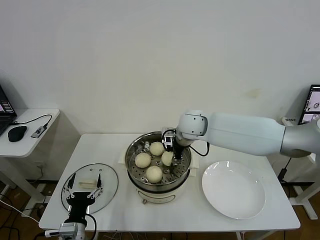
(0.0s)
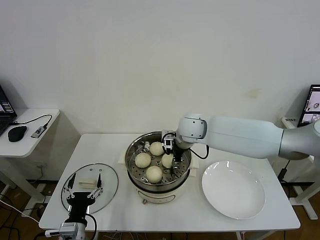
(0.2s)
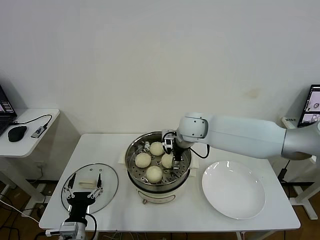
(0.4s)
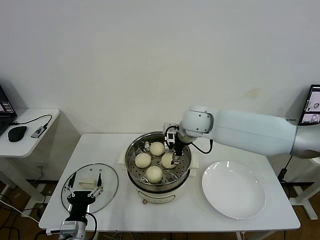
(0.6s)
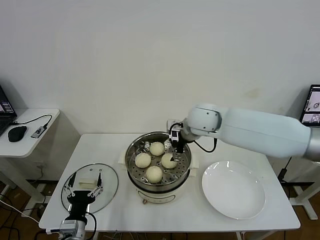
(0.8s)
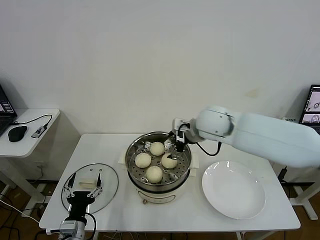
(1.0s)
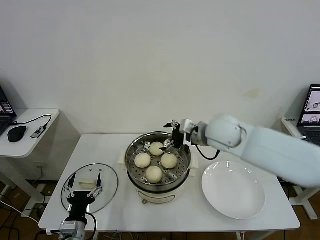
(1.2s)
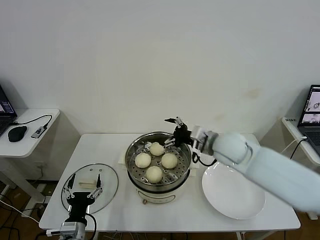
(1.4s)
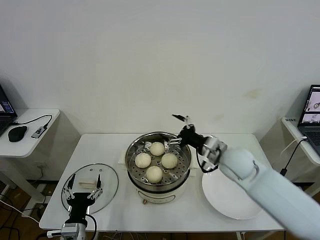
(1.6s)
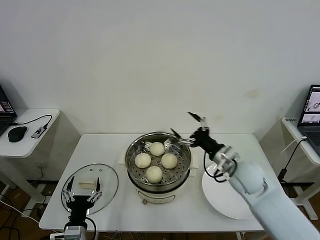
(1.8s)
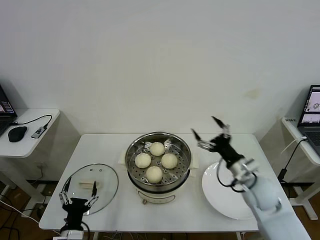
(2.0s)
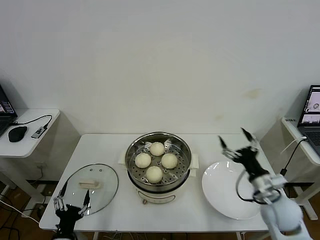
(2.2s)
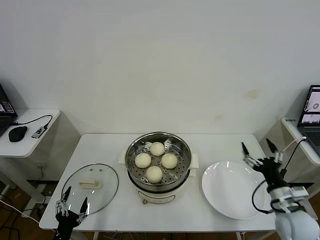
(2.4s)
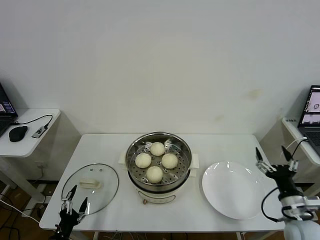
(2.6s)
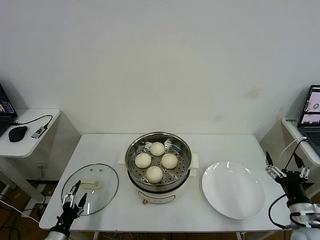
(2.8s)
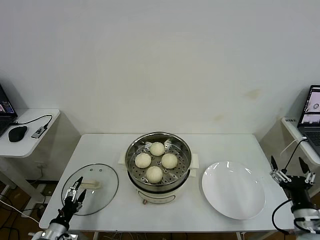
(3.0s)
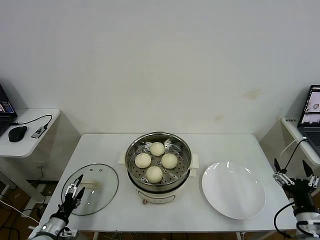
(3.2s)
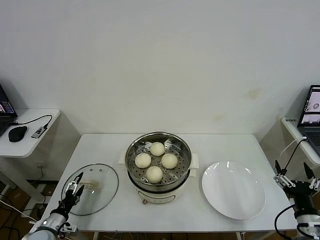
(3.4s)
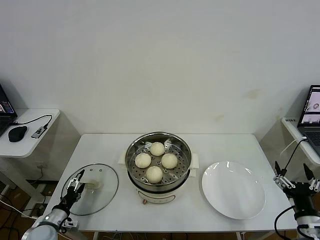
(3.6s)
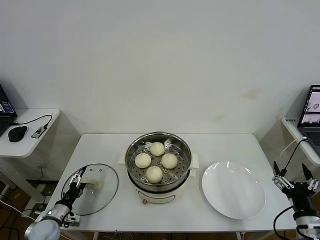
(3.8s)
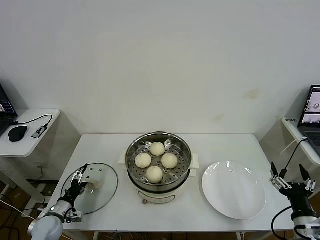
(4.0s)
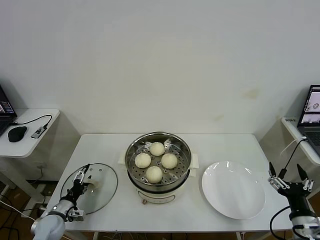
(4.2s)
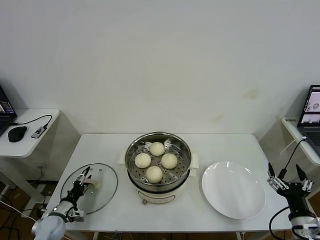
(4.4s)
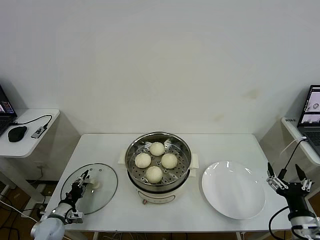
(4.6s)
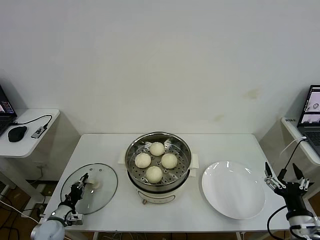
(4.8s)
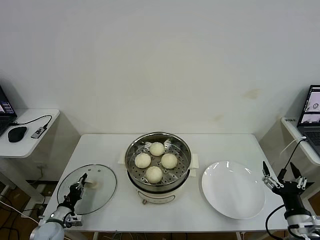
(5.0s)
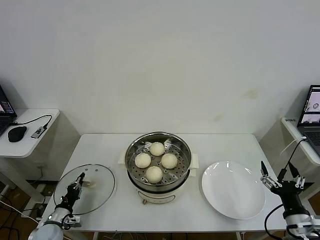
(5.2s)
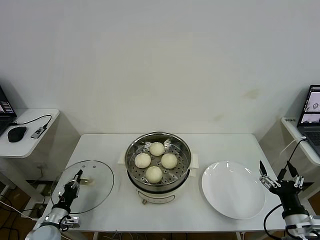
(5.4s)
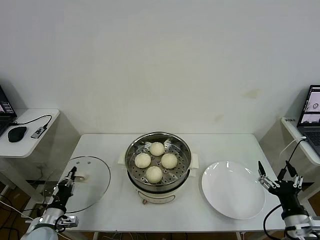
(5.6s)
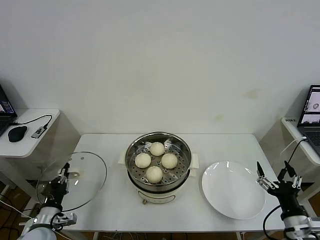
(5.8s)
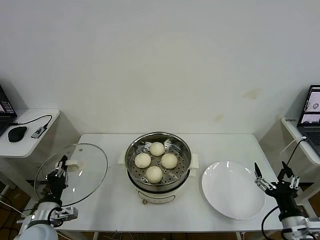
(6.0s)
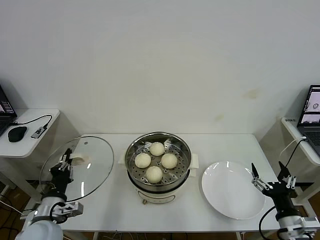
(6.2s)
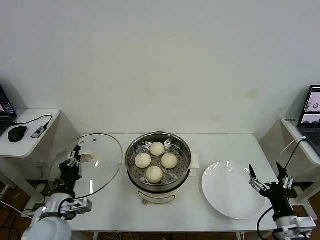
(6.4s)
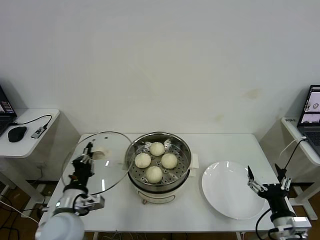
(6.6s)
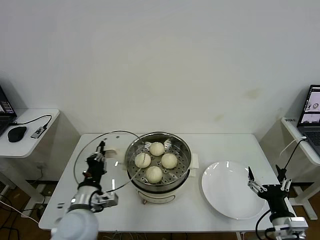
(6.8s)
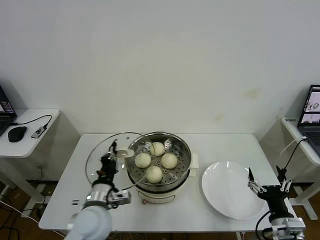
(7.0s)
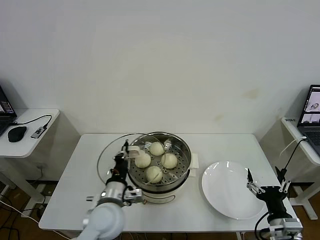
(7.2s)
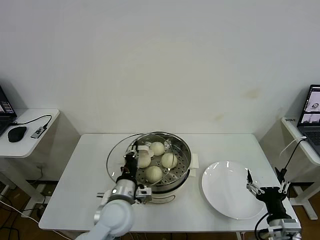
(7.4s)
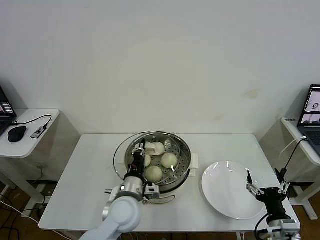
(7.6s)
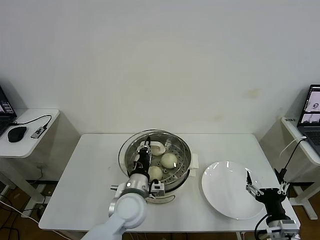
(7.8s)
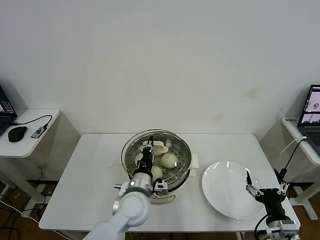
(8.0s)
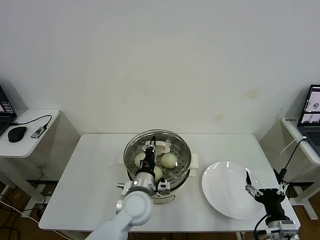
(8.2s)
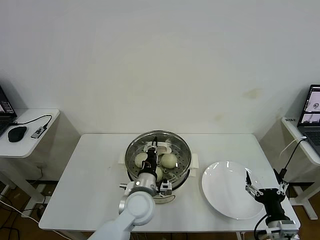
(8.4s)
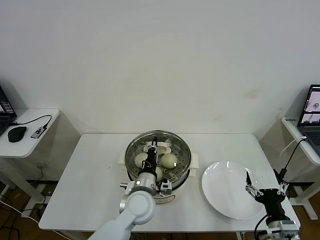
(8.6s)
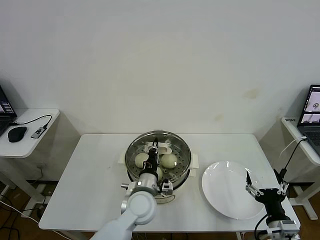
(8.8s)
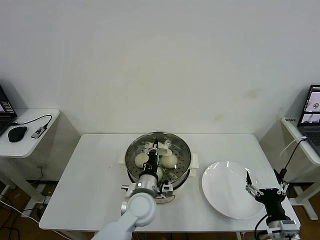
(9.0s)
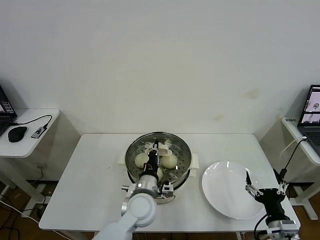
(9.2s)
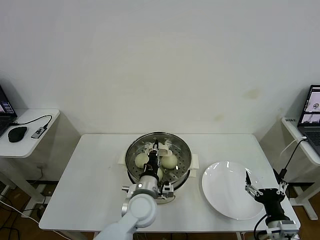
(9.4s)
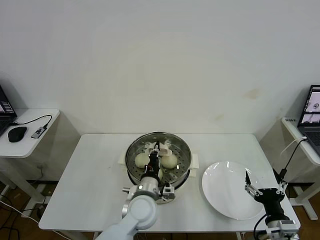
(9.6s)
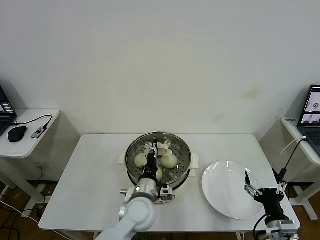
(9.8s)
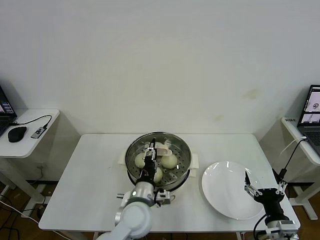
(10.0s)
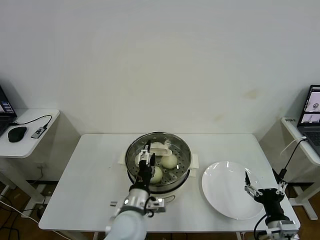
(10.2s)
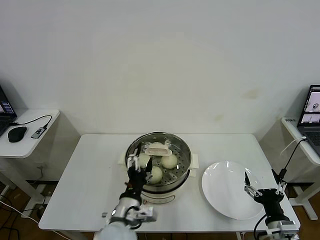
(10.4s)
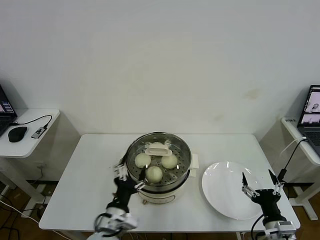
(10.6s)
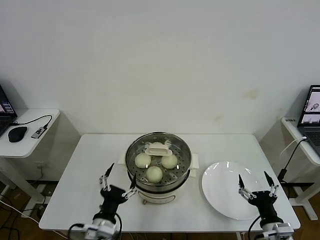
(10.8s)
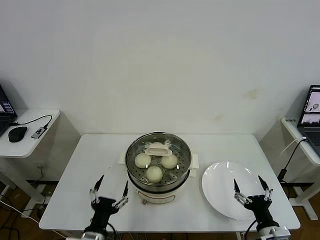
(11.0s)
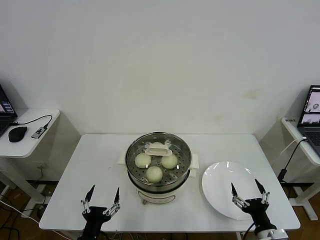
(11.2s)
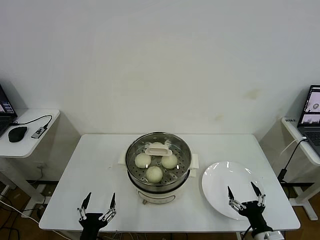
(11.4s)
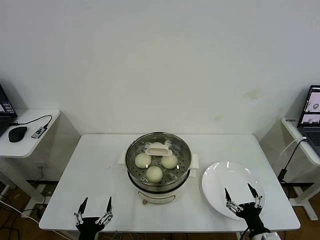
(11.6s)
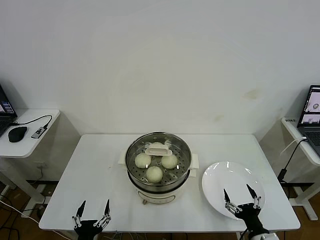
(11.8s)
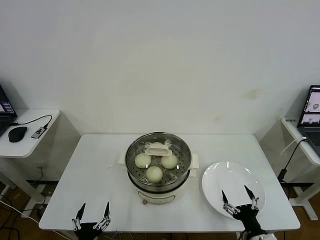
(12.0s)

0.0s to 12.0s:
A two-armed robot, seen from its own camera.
Task of the whole recording: take steamed baozi put them in steamer then cover it.
Step, 0.8s to 5.0s: Grasp the pot lid with left gripper.
Step, 5.2s to 10.4s: Place the pot lid on the steamer with left gripper.
0.0s to 1.6s: The right gripper is displaced to the right and backward by about 15 cm, and opens up.
1.6s to 3.0s: The right gripper shifts roughly 30 cm backward, to the right and downward. Meanwhile the left gripper goes about 15 cm to the left and downward.
3.0s to 4.4s: The left gripper heads forward, covering some 10 cm.
4.4s to 6.0s: The left gripper moves upward, backward and to the right, about 15 cm, and closes its fingers.
6.0s to 7.6s: The left gripper shifts some 25 cm to the right.
7.6s to 9.0s: The left gripper moves about 5 cm.
9.0s to 10.4s: The left gripper moves backward, about 10 cm, and opens up.
10.4s to 12.0s: The left gripper is displaced to the left, backward and downward by some 25 cm, while the right gripper goes some 5 cm downward.

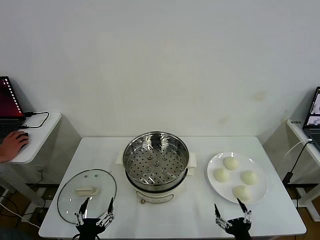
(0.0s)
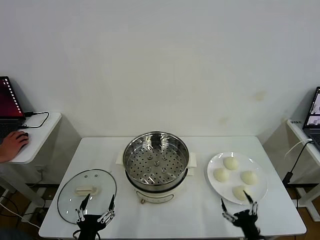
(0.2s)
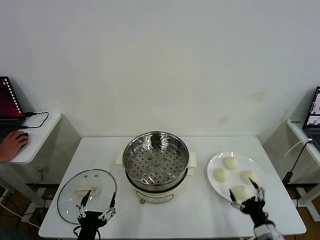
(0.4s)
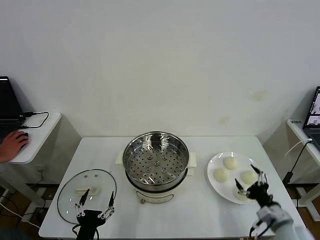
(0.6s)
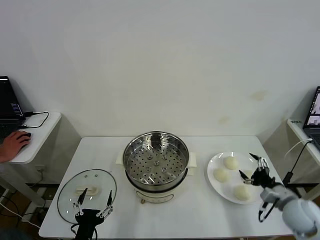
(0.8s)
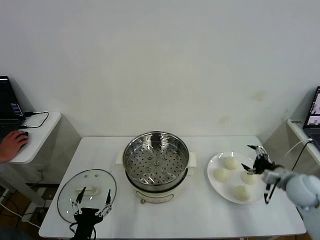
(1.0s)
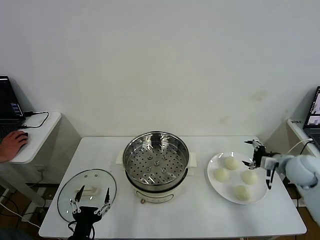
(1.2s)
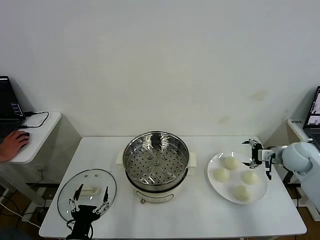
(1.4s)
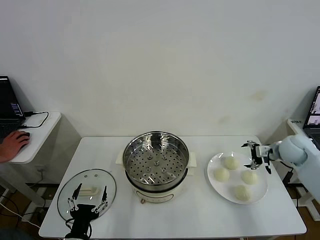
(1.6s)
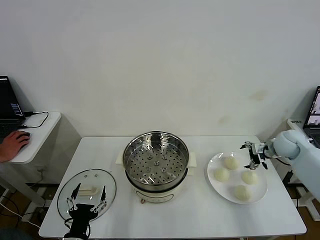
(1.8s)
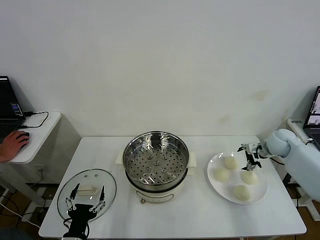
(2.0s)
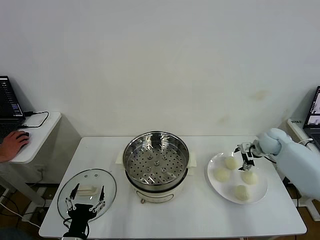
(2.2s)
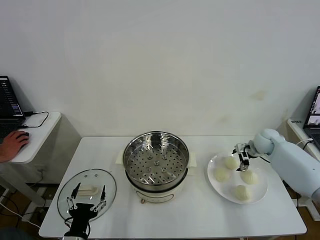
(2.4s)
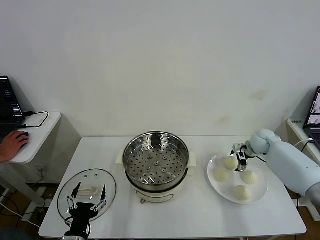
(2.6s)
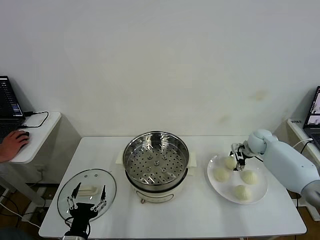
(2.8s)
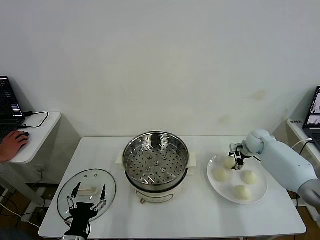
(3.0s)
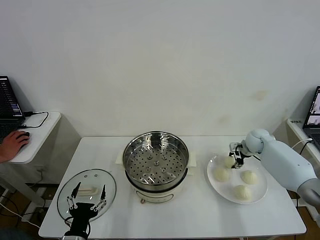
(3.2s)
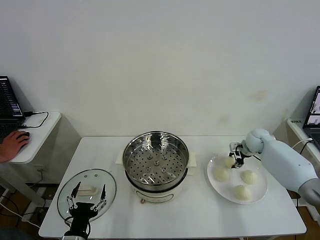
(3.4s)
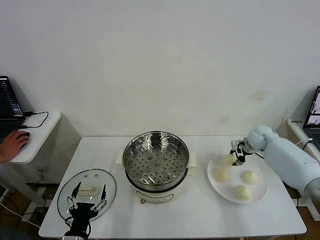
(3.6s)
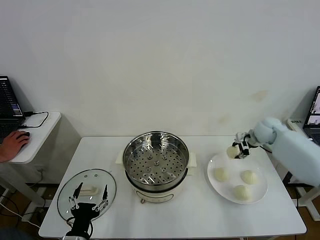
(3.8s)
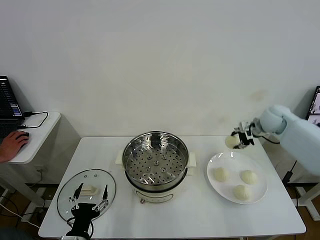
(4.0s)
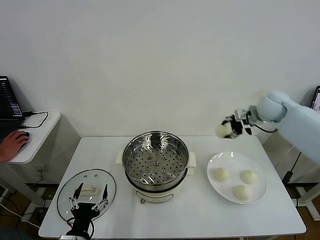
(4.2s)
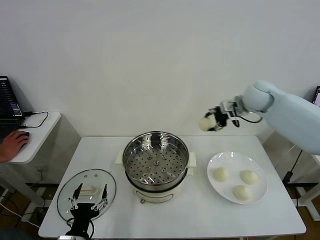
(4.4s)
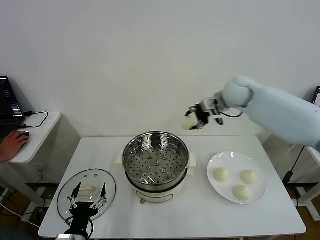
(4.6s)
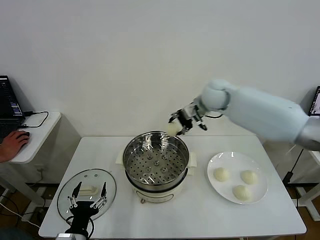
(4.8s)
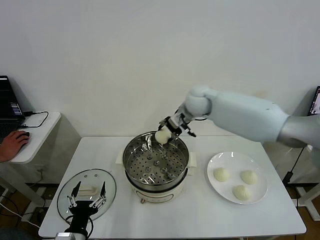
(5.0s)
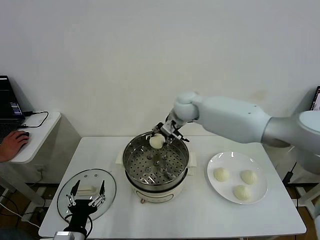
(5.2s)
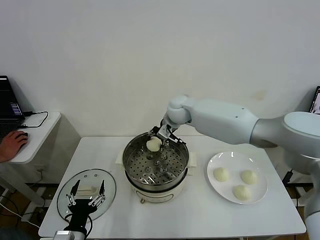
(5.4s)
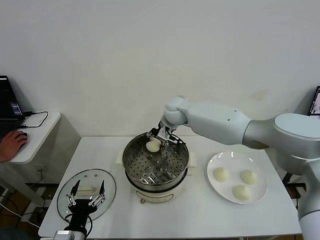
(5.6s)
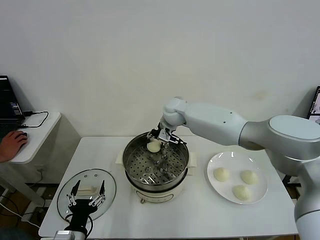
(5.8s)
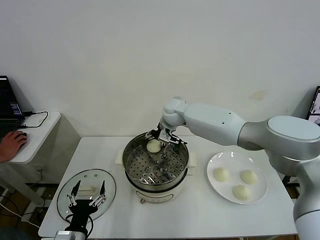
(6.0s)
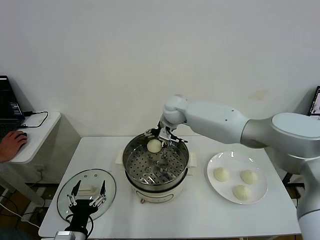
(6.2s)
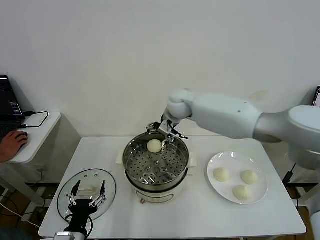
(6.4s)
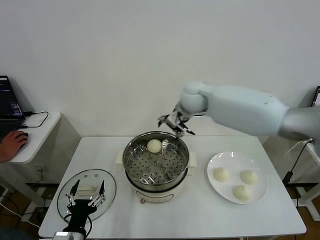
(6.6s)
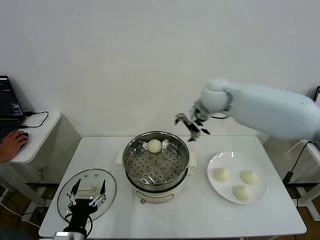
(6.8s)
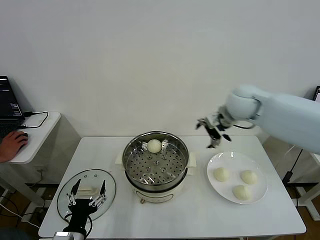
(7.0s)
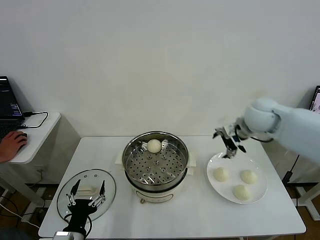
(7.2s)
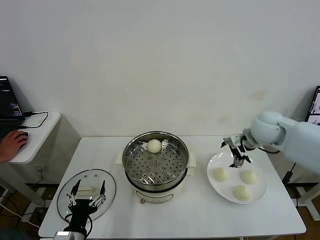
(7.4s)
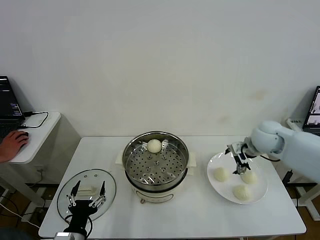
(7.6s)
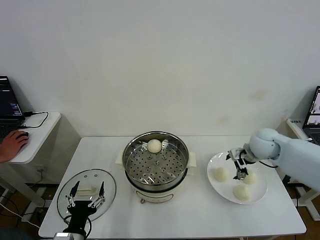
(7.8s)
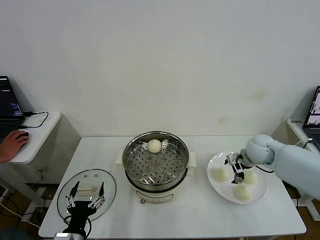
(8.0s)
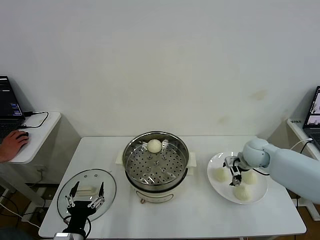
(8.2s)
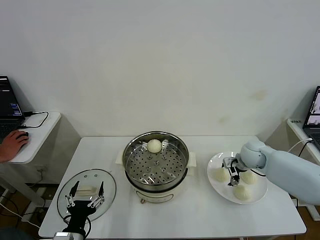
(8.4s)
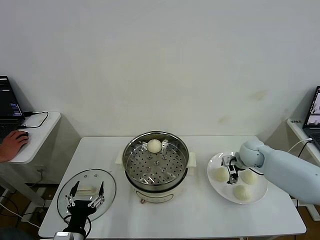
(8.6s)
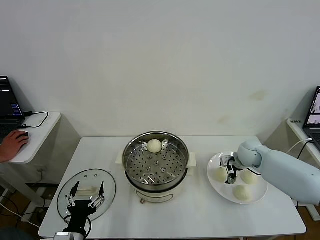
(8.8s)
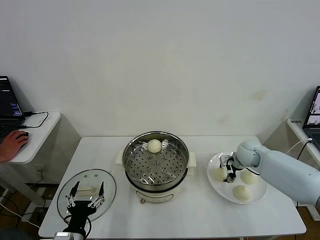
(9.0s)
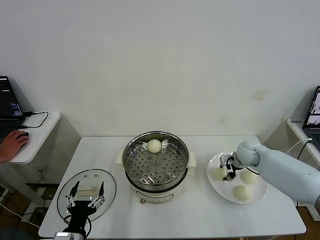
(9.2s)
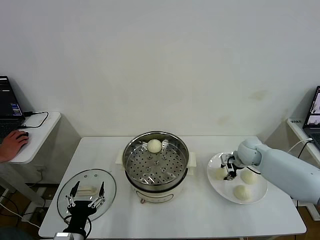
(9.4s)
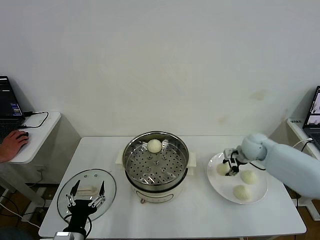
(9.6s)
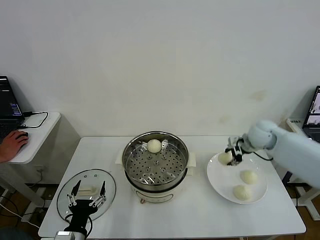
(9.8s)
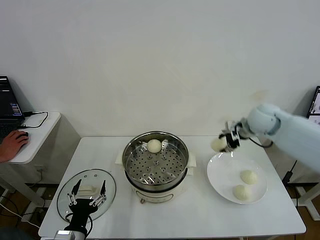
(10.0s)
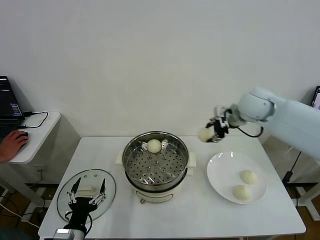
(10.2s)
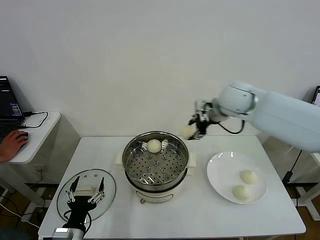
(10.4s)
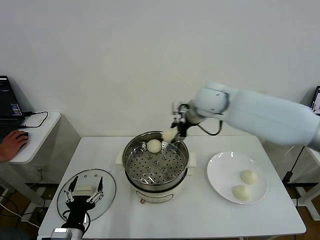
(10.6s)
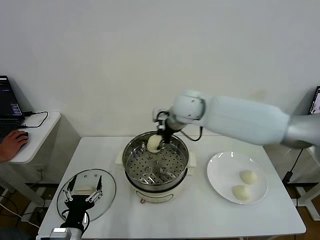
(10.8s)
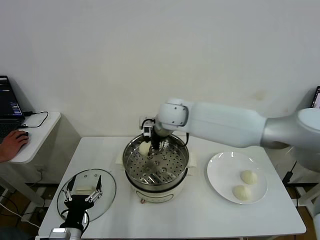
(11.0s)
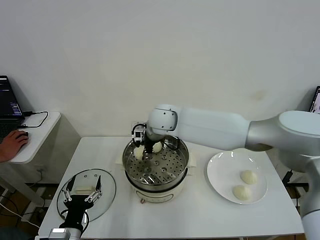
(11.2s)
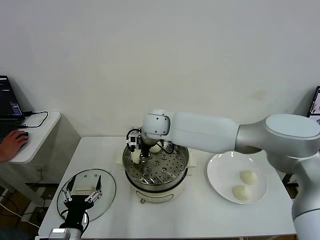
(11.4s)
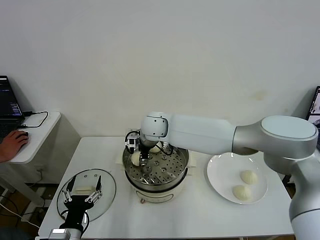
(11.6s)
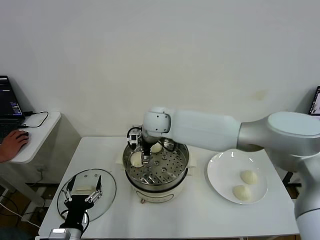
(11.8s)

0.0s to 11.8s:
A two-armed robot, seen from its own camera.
Task of the whole recording: take steamed baozi put them in steamer then cover it.
Step, 0.0s to 3.0s: Grasp the baozi in the plate with right gripper.
Step, 3.2s to 6.2s: Place the baozi on the steamer with right gripper.
Step, 6.4s to 9.2s: Grasp the baozi in the plate with right gripper.
Step, 9.4s to 11.8s: Place the baozi on the steamer with right gripper.
1.4s to 3.0s: The right gripper travels forward, downward and to the left by roughly 15 cm, and closes up.
3.0s to 4.4s: The right gripper is displaced upward and to the left by about 25 cm.
4.4s to 6.0s: The right gripper heads to the left and downward, covering some 25 cm, and opens its fingers.
6.0s to 7.4s: The right gripper goes roughly 30 cm to the right and backward.
7.4s to 8.8s: The right gripper is displaced downward by roughly 15 cm.
8.8s to 10.4s: The right gripper travels upward and to the left by about 30 cm, and closes.
10.4s to 11.8s: The right gripper is displaced to the left by roughly 20 cm, and opens its fingers.
